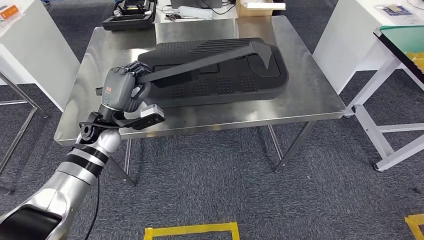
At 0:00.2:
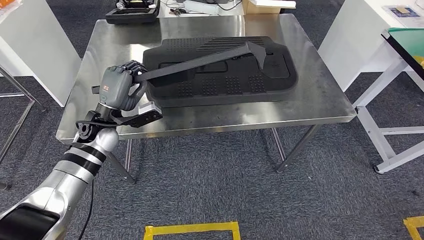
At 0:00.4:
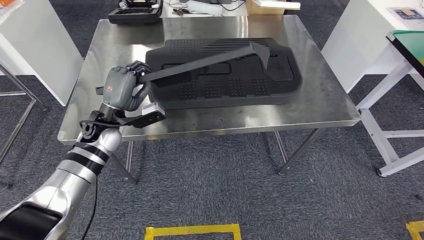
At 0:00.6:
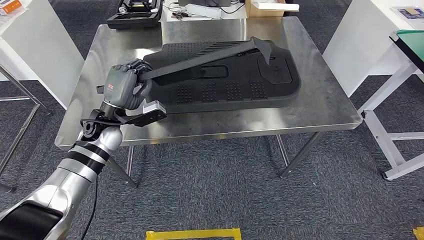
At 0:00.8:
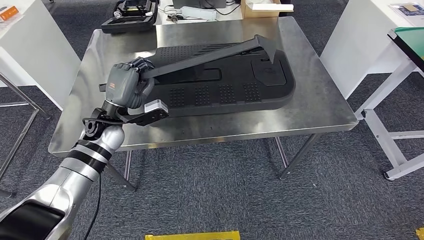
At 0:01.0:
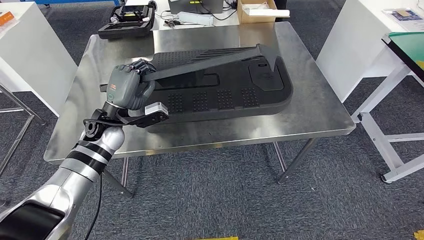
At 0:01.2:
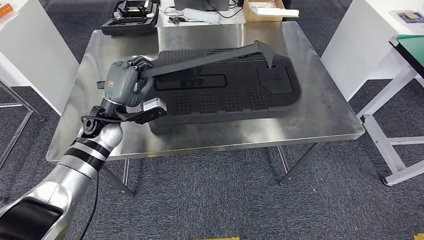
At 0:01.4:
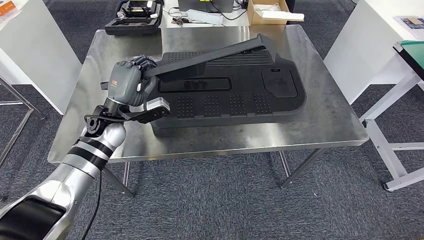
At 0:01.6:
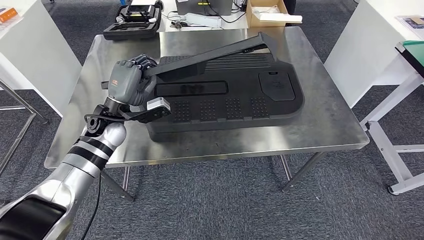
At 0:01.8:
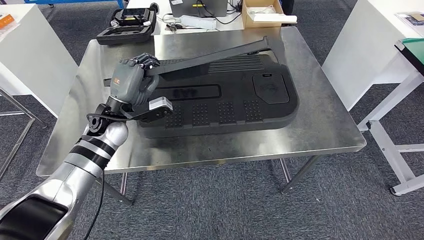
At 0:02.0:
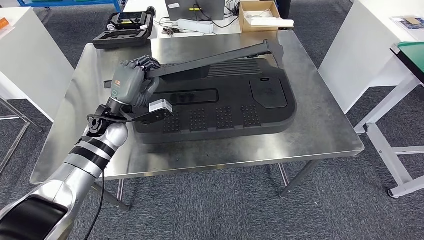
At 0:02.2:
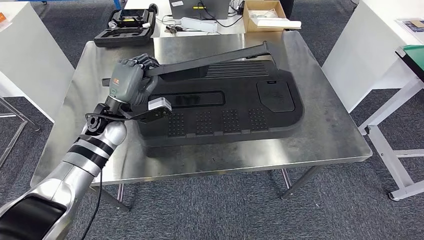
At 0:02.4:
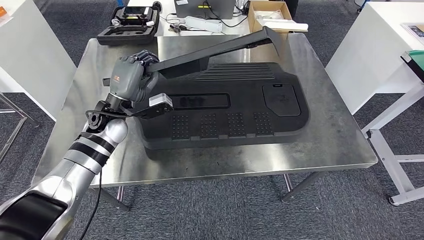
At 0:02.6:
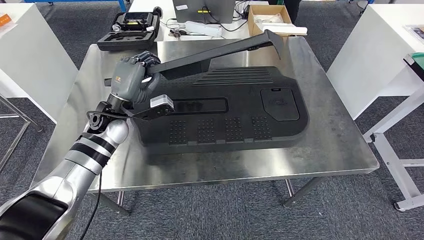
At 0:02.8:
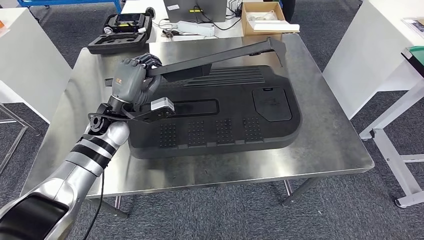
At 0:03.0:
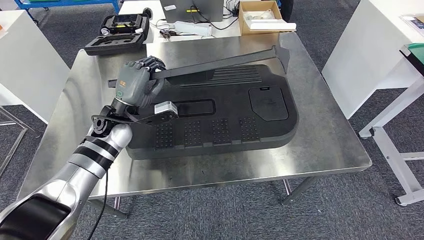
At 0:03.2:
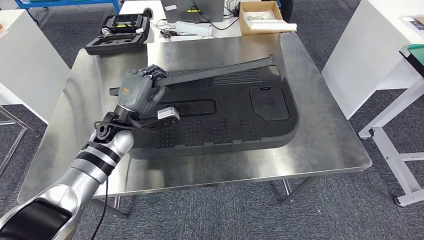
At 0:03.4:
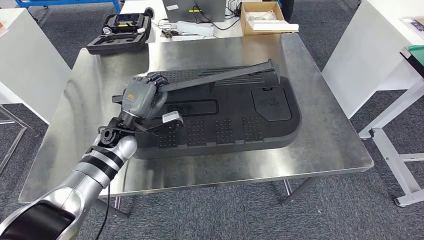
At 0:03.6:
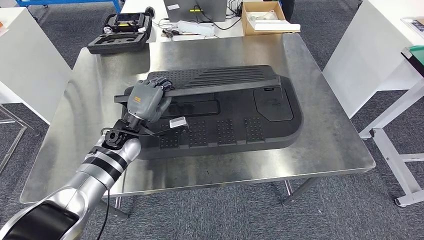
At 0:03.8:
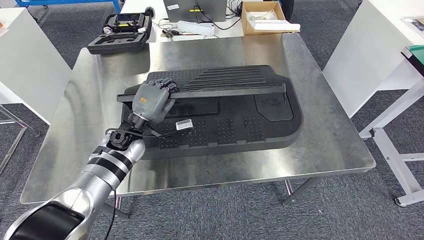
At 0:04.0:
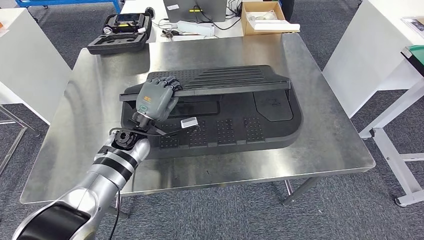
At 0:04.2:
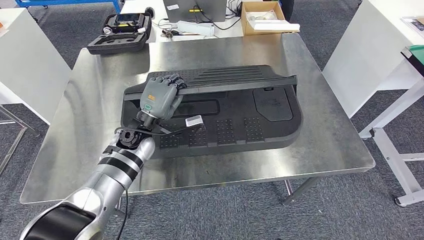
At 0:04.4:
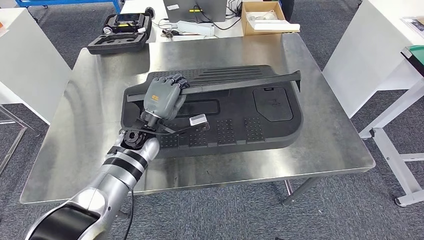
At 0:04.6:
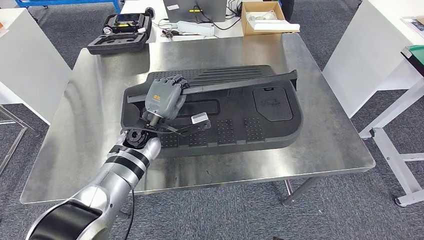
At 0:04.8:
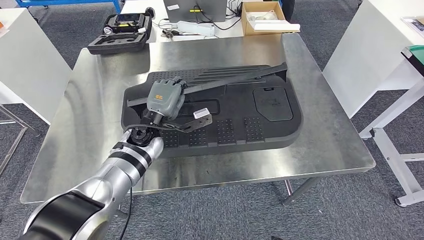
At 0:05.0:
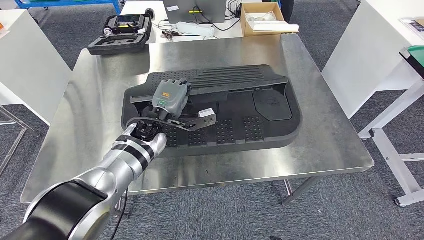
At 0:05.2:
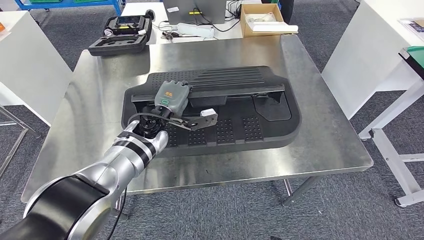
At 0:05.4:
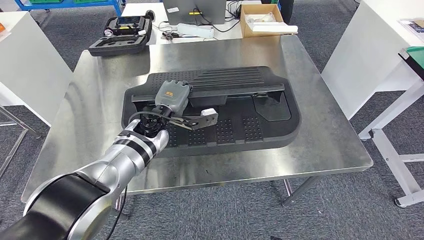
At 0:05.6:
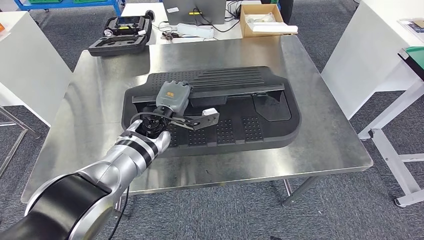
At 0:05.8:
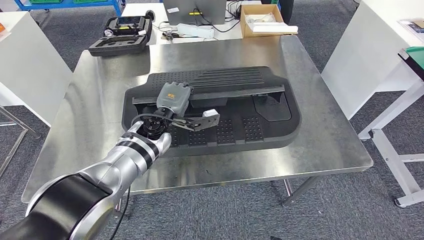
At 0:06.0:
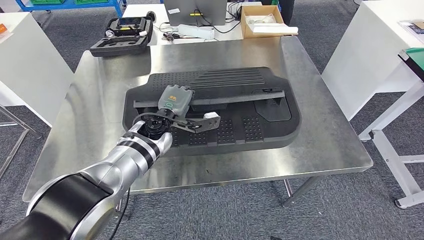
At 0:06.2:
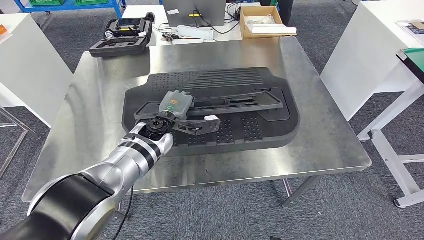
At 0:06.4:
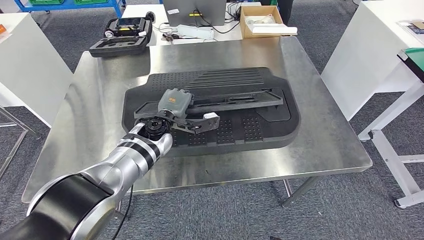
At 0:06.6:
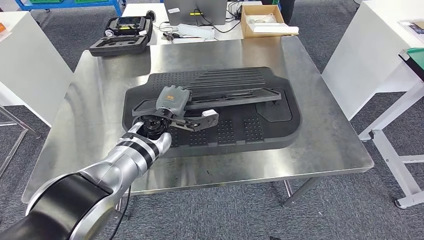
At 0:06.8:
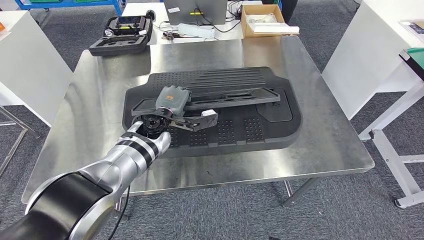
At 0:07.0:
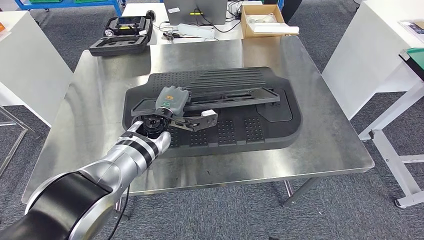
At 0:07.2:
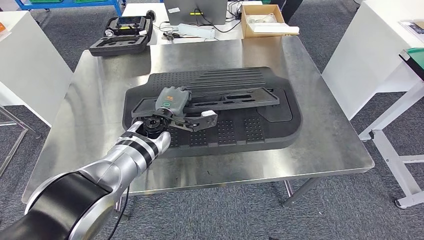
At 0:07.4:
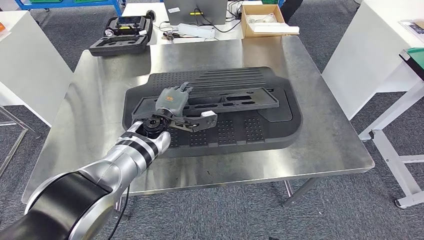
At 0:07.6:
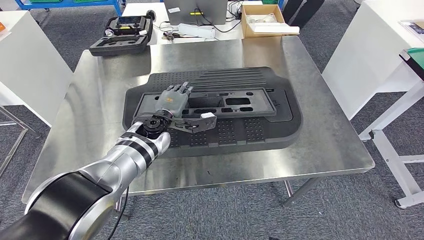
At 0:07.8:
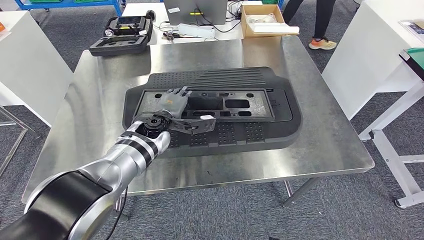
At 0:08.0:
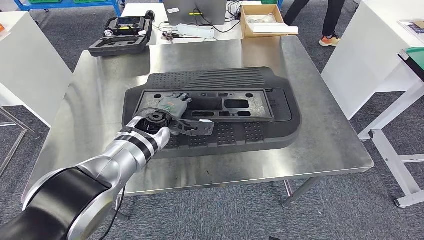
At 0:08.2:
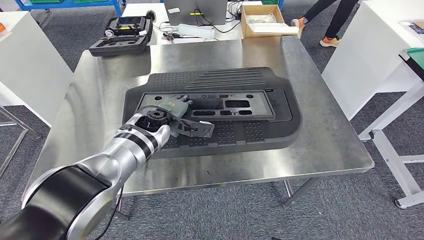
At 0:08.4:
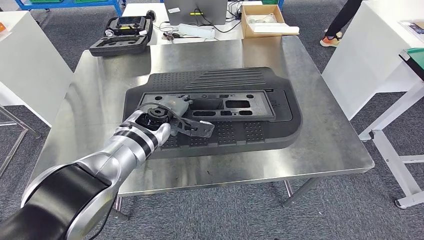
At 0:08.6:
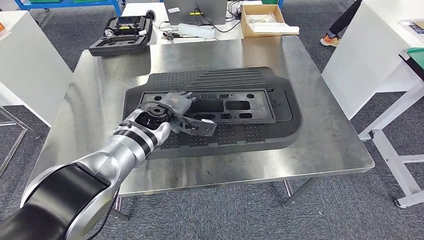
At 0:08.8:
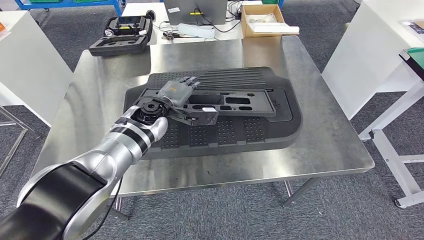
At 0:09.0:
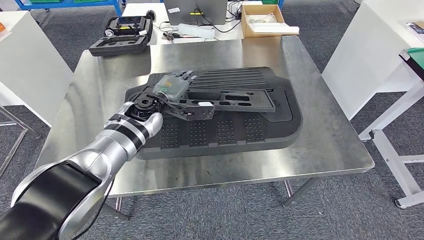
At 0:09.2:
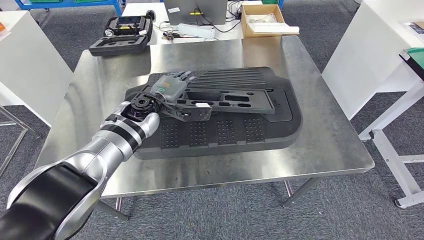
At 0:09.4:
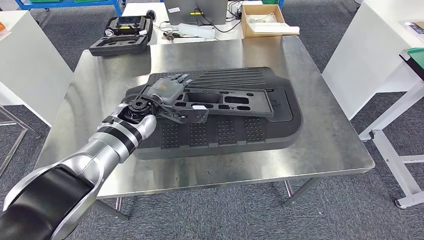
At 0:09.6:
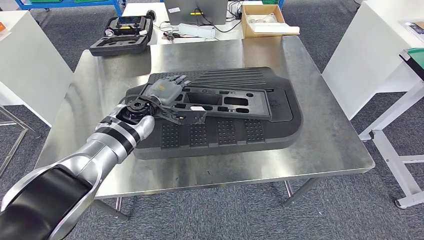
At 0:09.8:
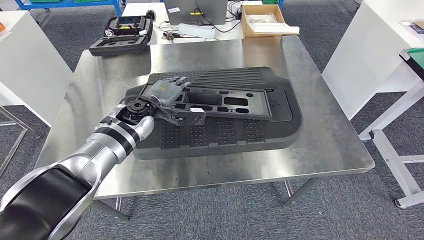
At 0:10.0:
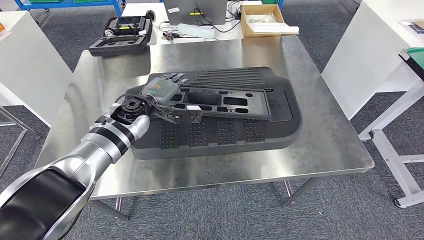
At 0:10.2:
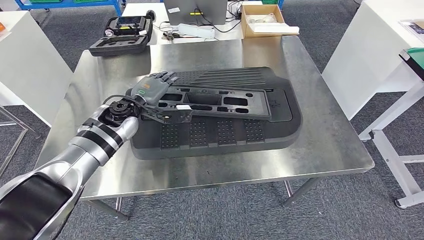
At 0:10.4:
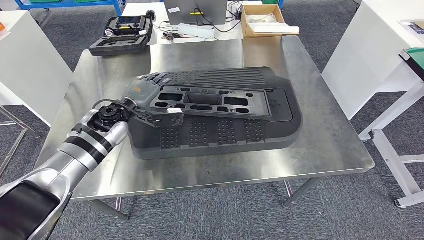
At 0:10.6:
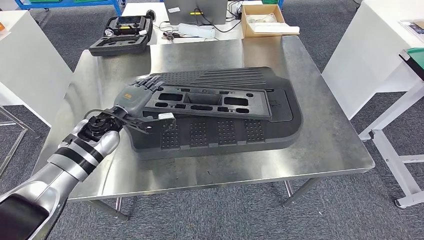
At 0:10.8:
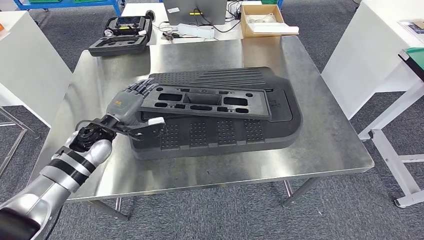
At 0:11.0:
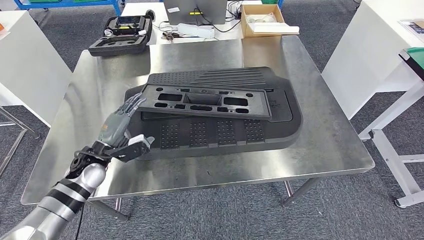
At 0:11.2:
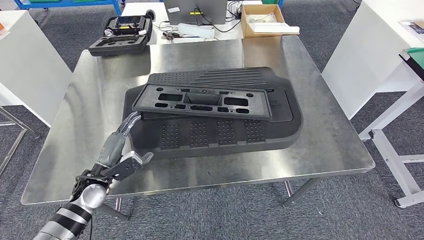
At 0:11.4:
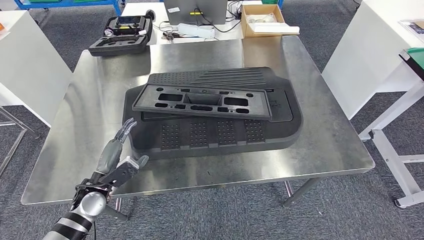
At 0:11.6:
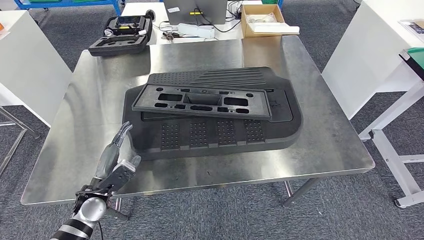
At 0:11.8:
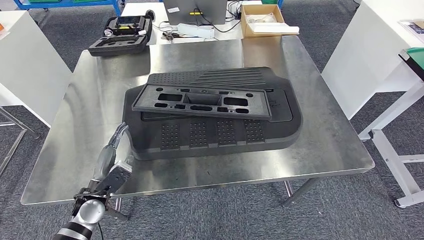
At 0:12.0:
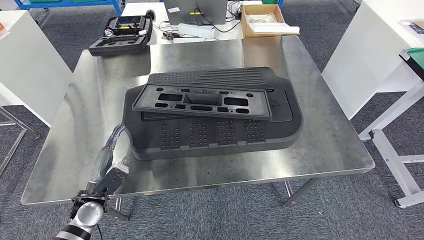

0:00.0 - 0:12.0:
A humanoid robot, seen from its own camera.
Step, 0:00.0 - 0:02.4: Move the large material to the workbench.
Step, 0:02.6 - 0:10.8: Insert the large material into the corresponding slot on the workbench.
0:06.0 - 0:07.6: The hands move only a little.
0:07.6 - 0:09.0: The left hand changes place by approximately 5 cm.
0:09.0 - 0:10.4: The left hand heads to the left, covering approximately 10 cm.
0:10.4 - 0:12.0: The left hand travels backward, downward and to the left by some 25 cm.

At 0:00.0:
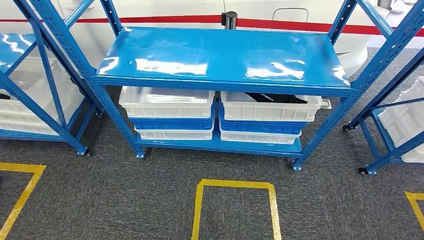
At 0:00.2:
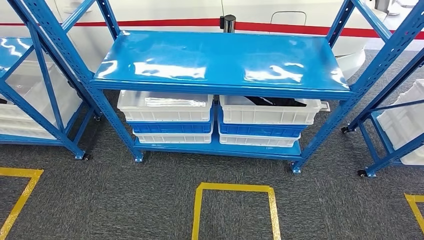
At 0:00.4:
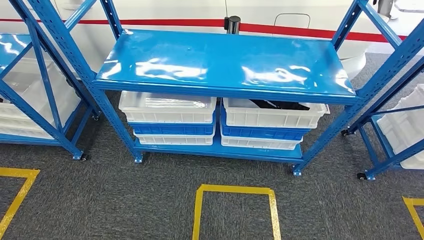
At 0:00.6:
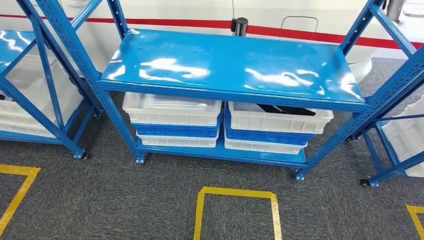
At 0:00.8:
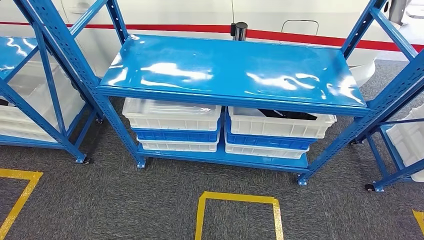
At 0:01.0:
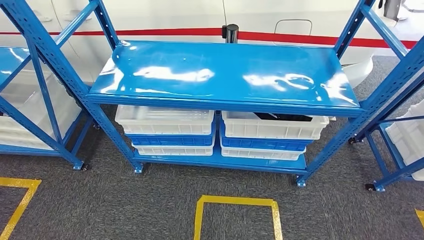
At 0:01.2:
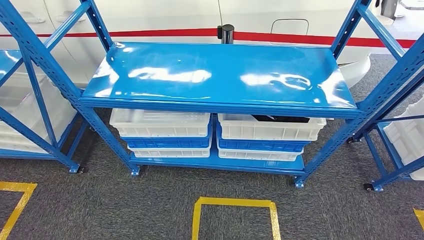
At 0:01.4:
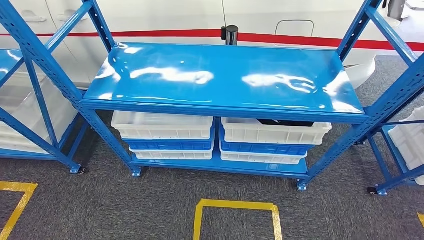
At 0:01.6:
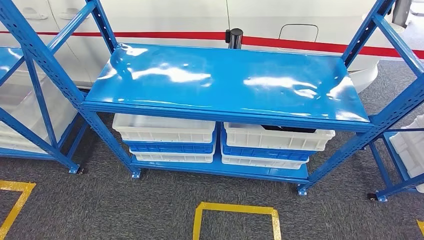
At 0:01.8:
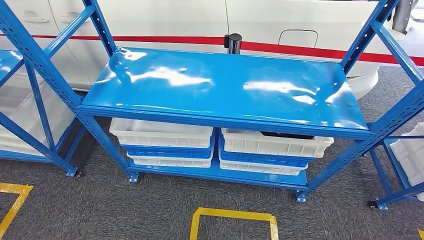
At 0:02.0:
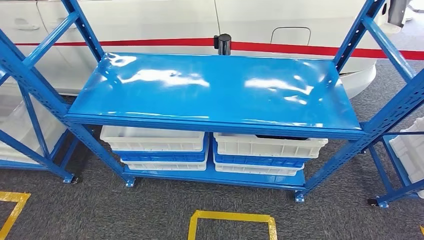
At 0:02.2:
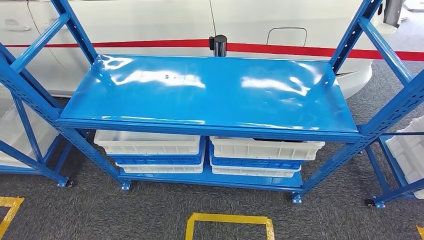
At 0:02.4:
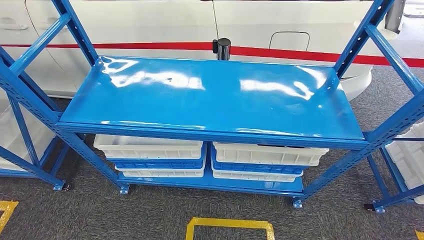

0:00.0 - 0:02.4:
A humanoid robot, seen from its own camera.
Step, 0:00.0 - 0:02.4: Move to the initial position of the shelf.
